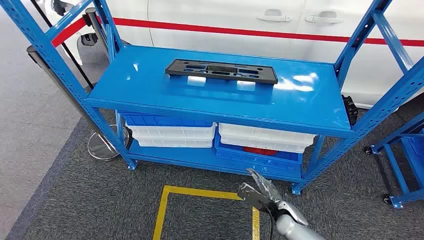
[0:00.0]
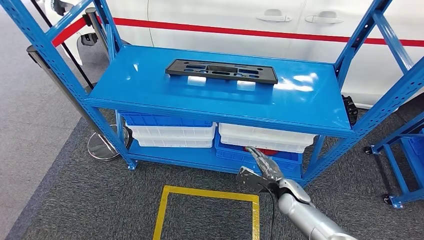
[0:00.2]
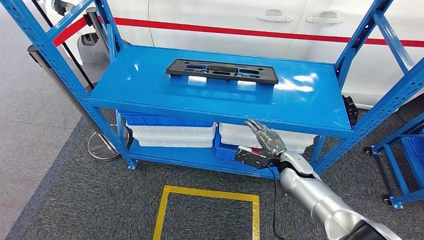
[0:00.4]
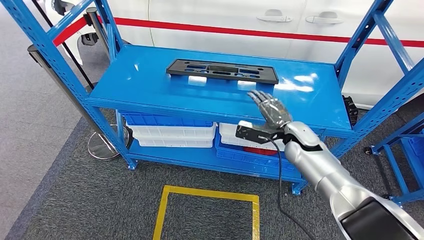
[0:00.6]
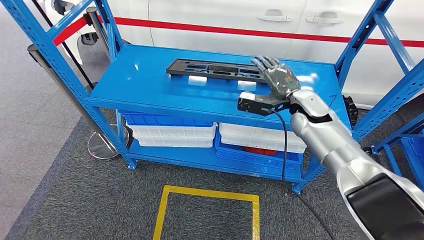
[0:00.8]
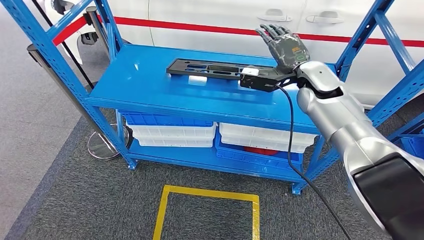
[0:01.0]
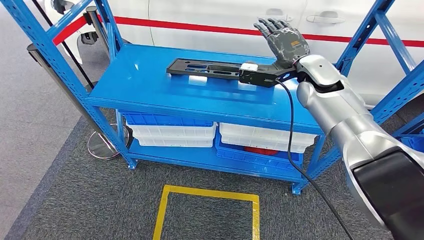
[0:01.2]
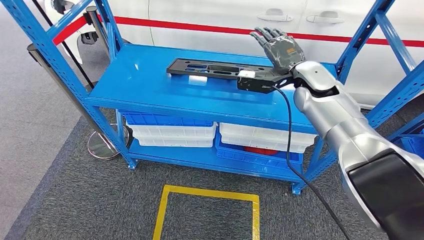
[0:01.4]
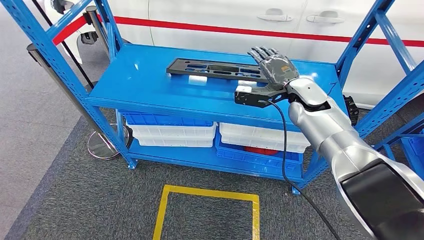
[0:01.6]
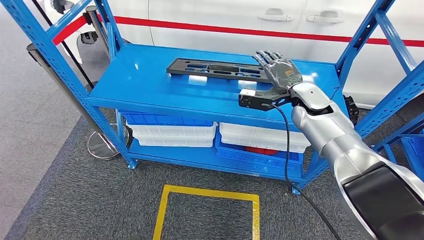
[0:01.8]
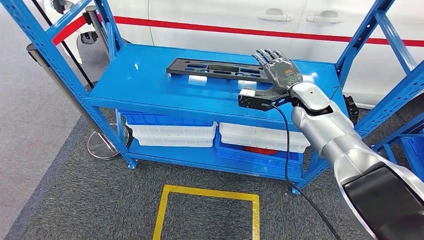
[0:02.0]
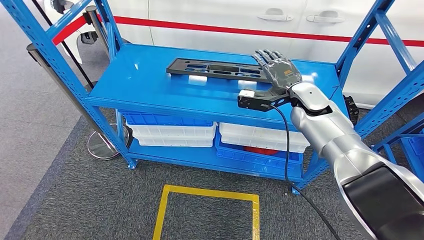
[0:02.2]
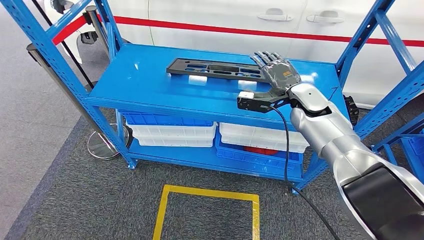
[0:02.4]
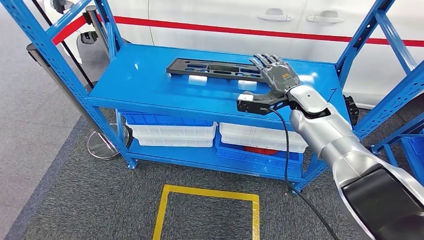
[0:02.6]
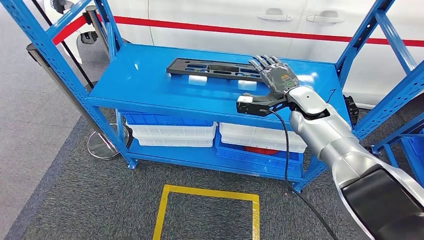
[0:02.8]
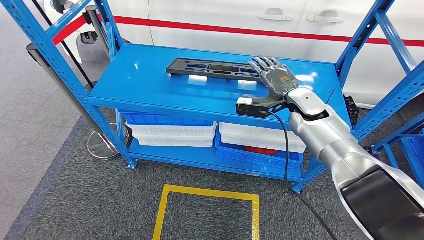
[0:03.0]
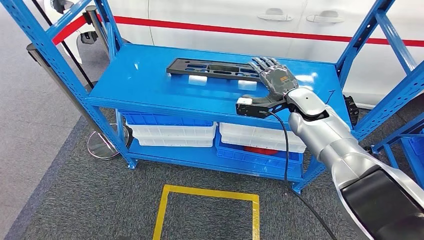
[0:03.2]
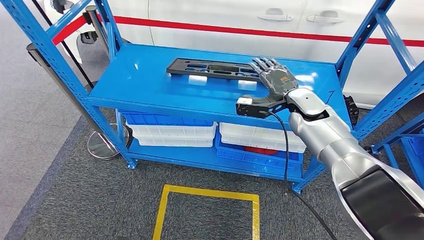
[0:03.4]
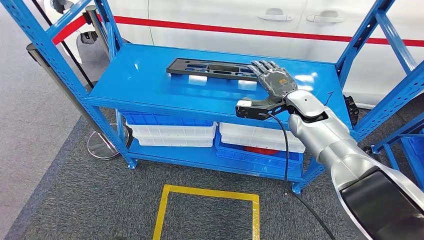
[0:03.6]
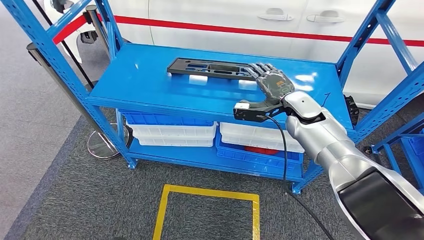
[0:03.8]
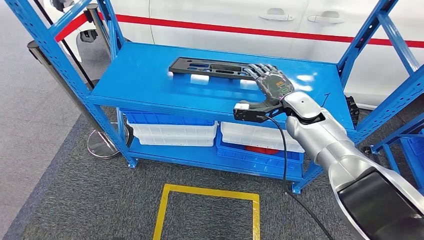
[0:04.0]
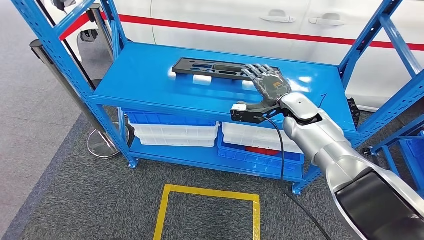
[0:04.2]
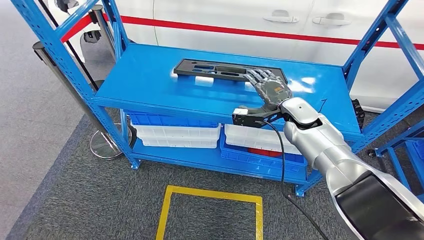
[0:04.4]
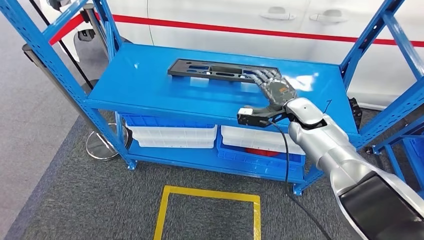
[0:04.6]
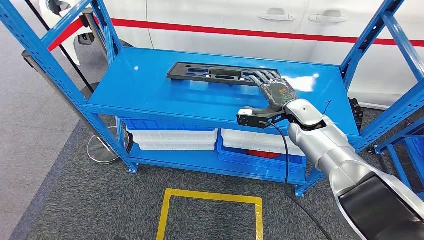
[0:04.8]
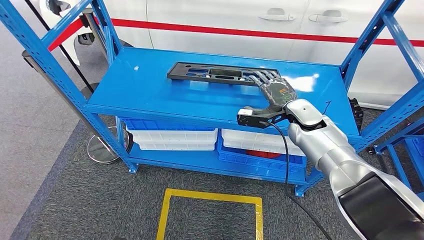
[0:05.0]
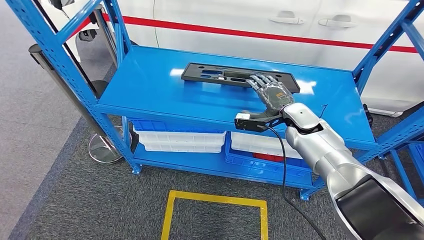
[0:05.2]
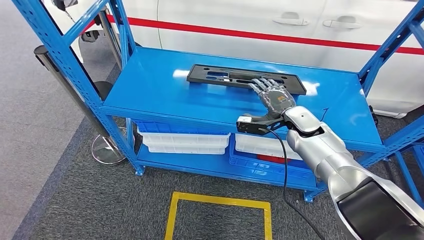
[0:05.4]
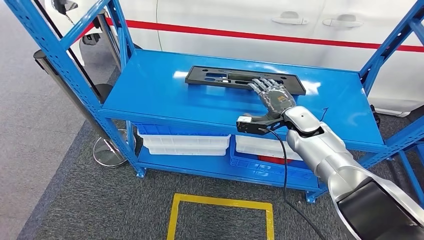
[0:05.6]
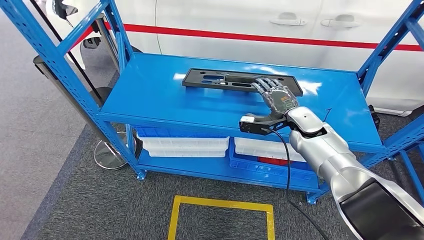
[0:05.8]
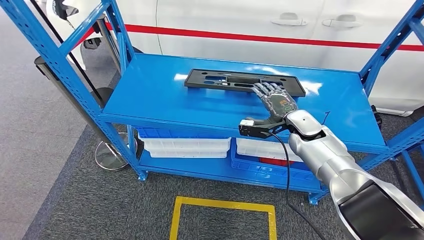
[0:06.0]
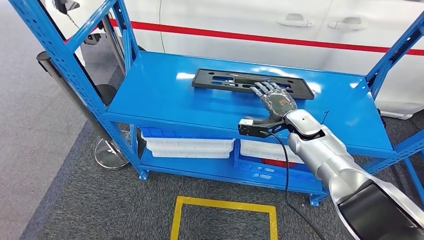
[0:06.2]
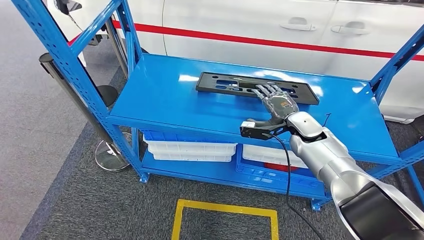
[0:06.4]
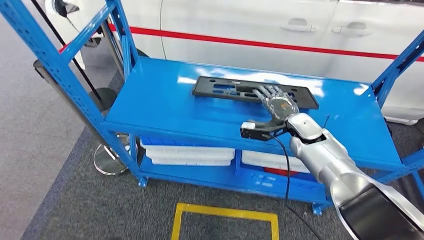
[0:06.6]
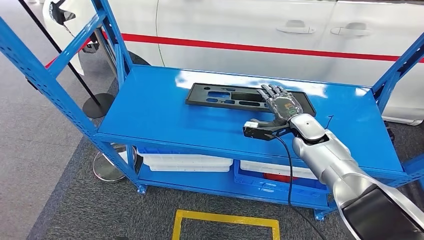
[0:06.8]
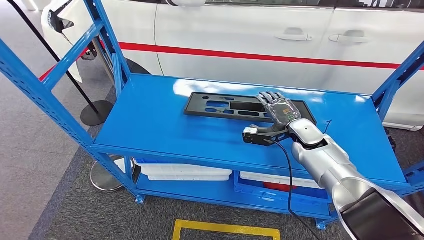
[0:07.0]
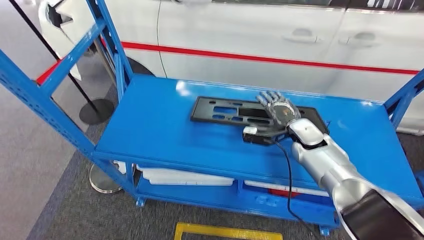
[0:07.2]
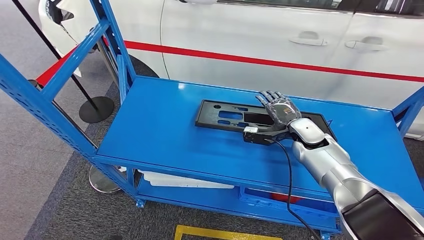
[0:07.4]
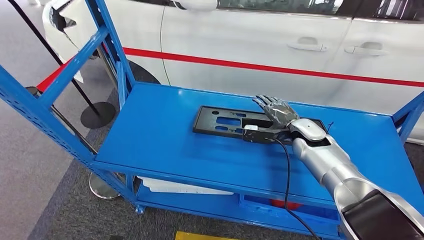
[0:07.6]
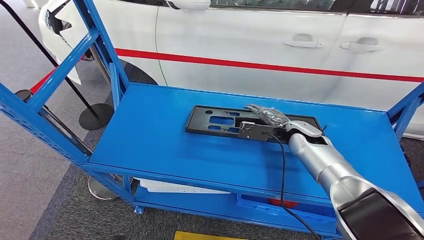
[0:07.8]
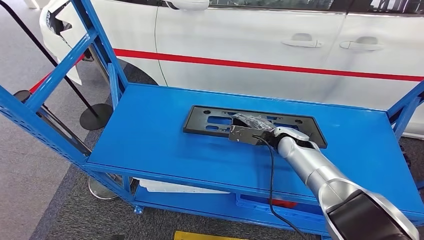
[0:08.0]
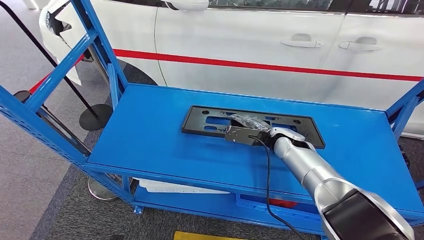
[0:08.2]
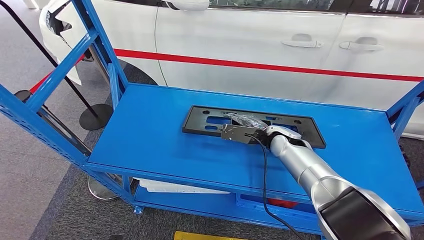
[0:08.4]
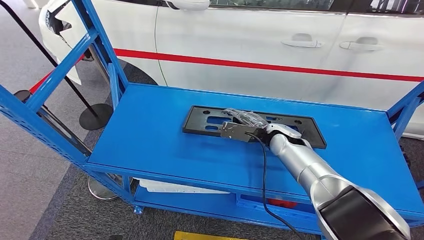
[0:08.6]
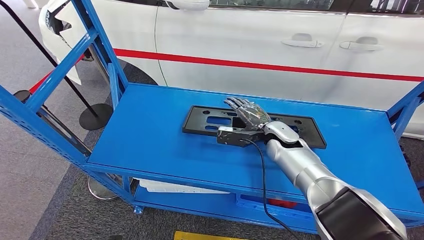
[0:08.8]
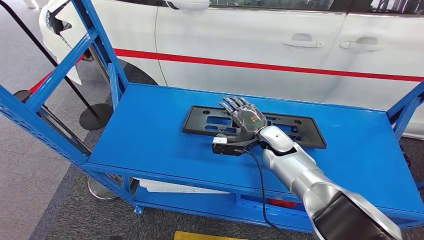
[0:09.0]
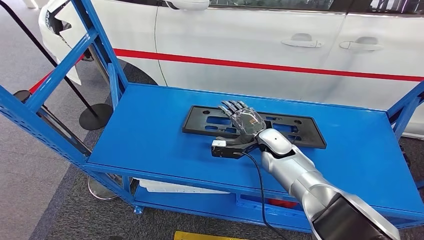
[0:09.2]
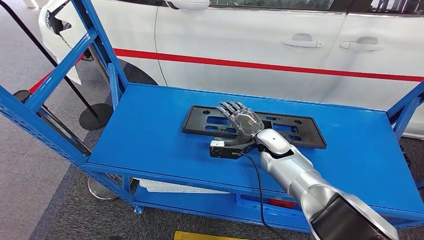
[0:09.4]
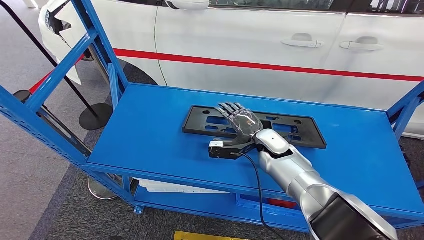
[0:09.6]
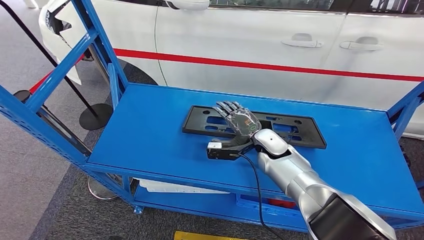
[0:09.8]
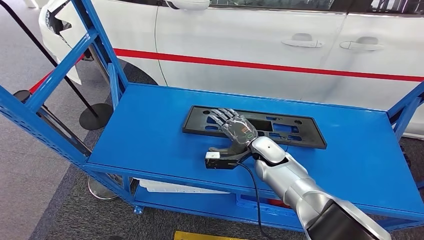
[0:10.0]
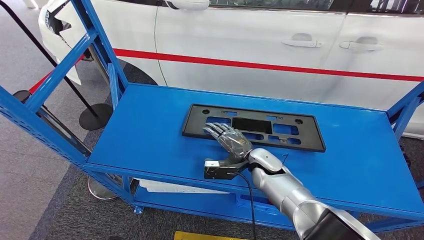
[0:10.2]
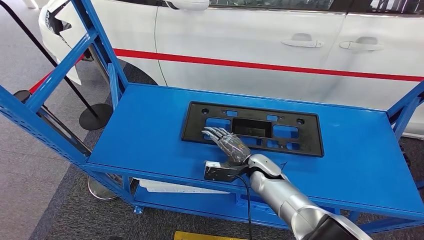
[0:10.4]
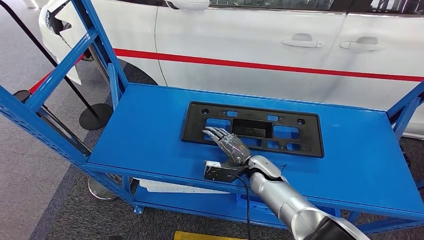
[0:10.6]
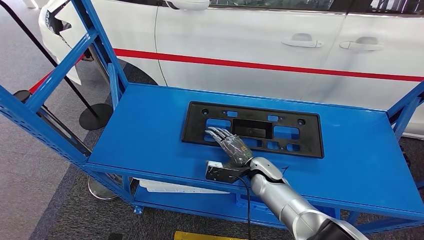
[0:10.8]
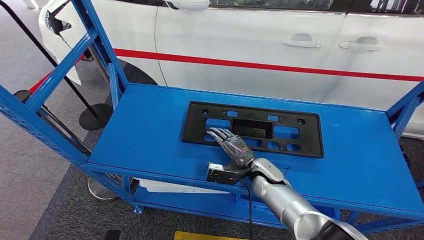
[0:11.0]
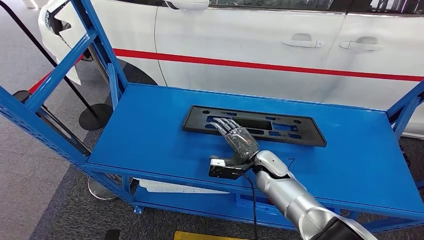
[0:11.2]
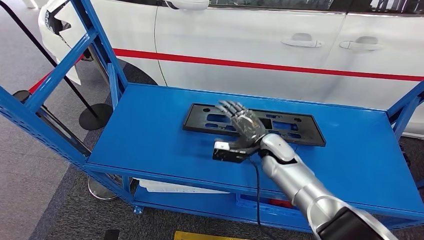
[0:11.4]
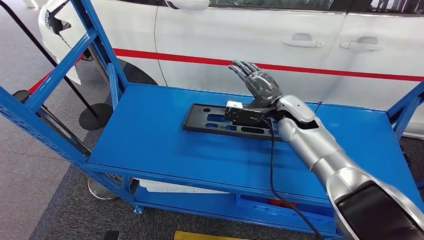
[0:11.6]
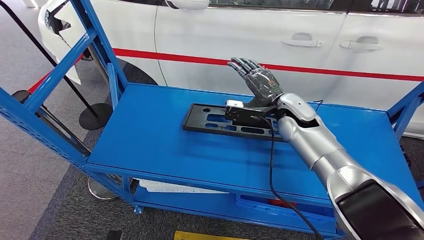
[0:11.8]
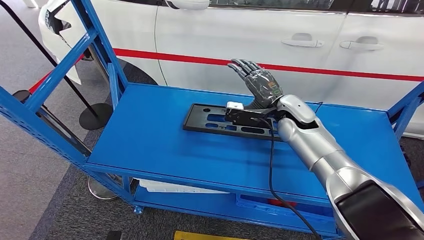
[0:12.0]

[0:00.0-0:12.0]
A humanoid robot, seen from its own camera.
0:09.0 to 0:10.4: The right hand goes roughly 5 cm downward.
0:10.4 to 0:12.0: The right hand heads upward and forward, covering roughly 15 cm.

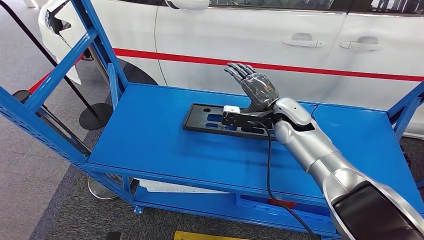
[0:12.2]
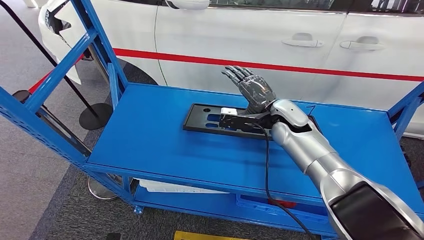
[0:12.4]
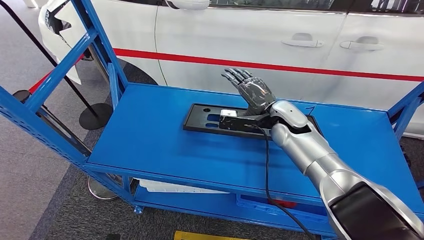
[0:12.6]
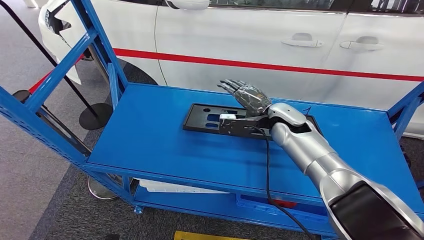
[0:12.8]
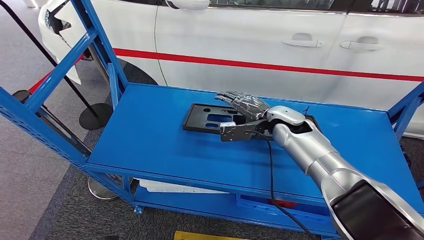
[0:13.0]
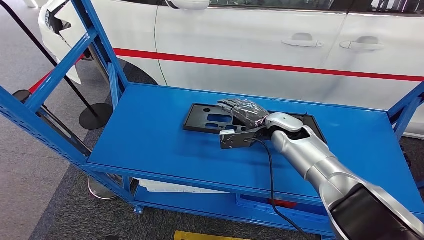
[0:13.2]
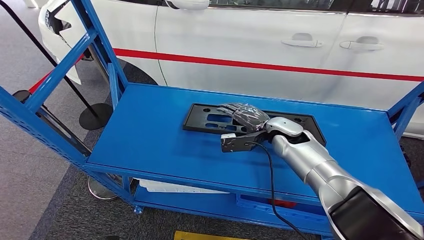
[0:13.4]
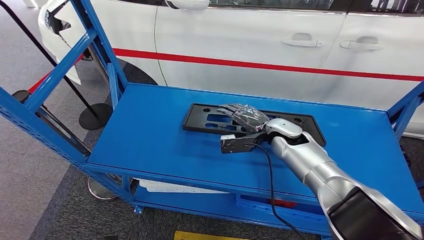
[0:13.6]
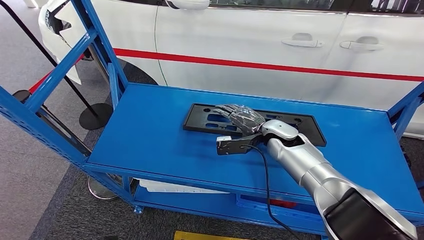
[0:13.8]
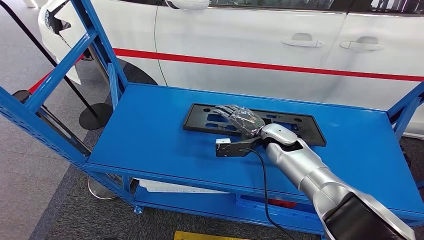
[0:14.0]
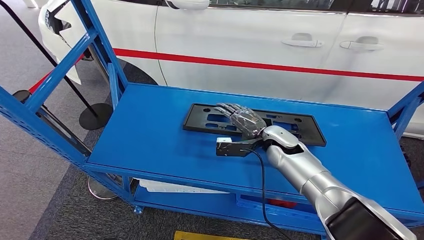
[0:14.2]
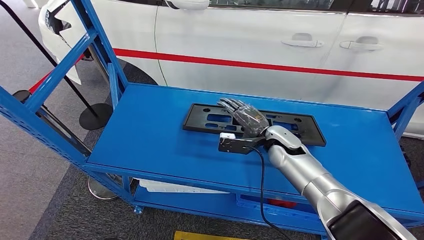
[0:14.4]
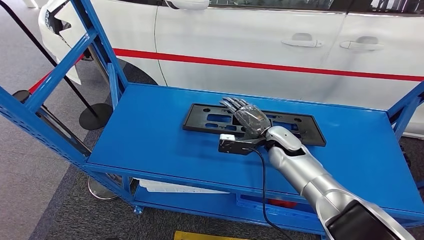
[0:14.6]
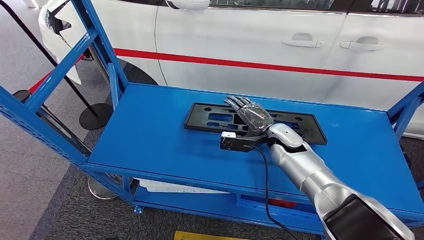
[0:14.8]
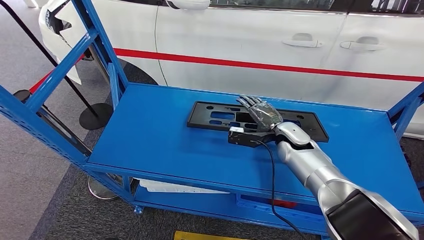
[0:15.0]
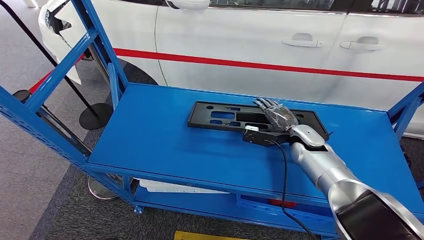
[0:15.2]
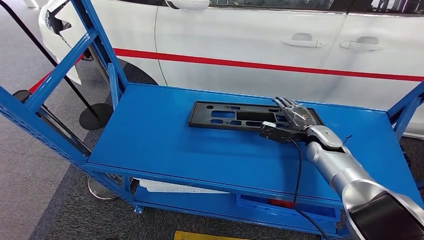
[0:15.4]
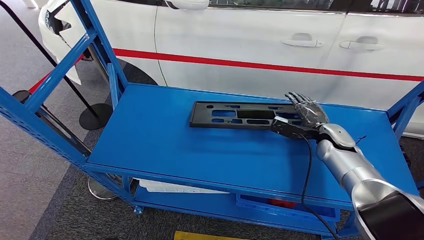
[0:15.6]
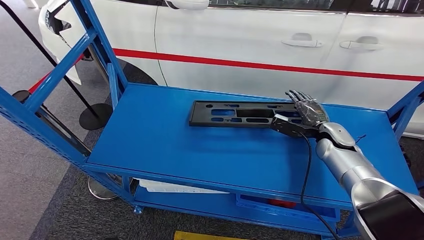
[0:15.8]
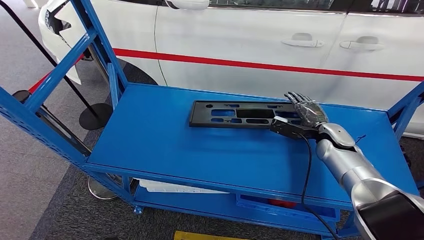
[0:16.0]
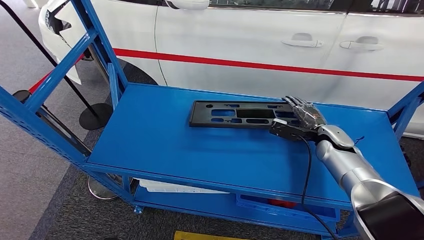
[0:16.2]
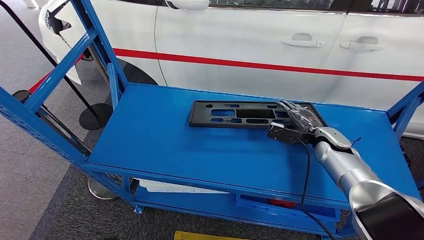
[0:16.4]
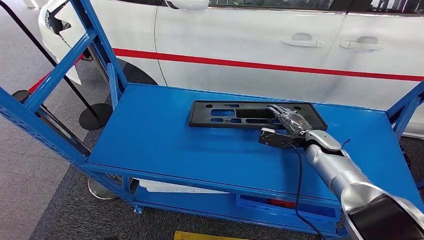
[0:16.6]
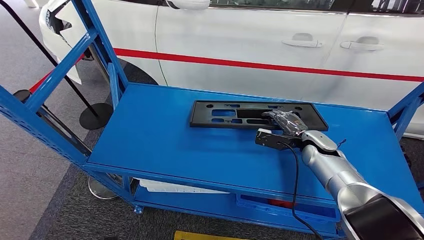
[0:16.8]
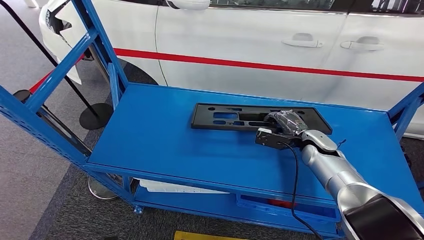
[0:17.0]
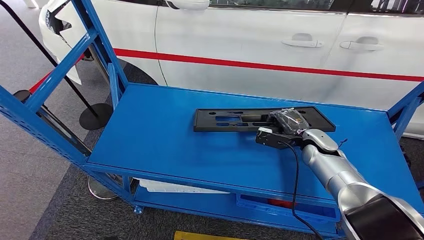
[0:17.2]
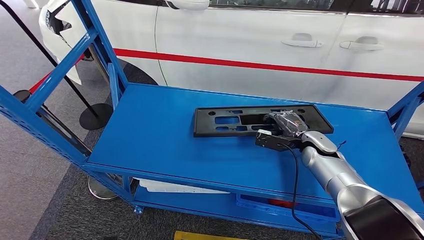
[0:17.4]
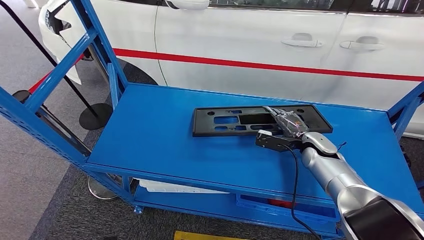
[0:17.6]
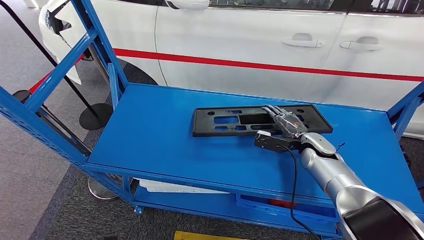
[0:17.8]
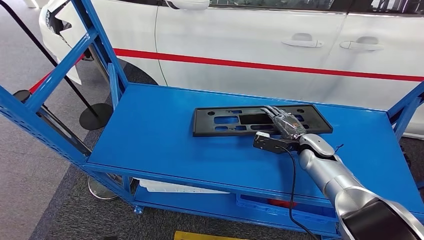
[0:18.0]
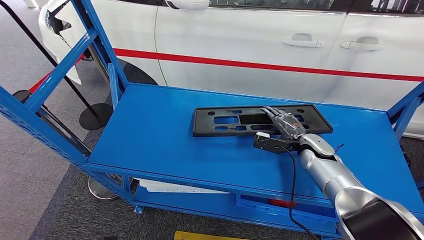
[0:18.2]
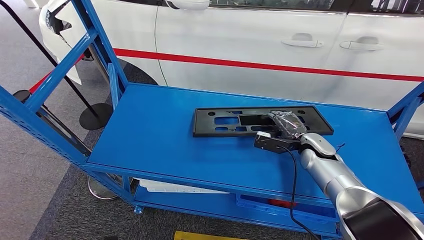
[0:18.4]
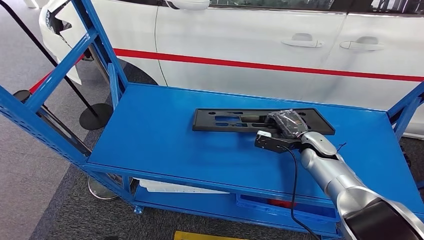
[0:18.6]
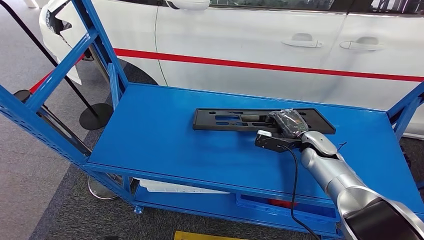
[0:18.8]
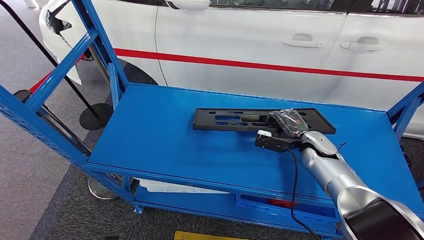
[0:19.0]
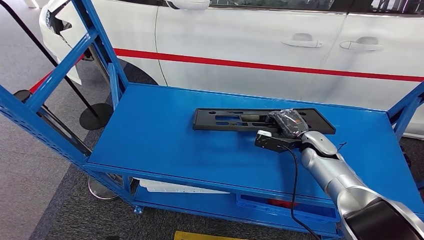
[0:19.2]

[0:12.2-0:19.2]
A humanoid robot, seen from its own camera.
0:12.2 to 0:13.6: The right hand travels downward by some 5 cm.
0:13.6 to 0:15.0: The hands stay close to where they were, moving slightly.
0:15.0 to 0:16.4: The right hand heads to the right, covering about 10 cm.
0:16.4 to 0:17.8: The hands stay close to where they were, moving slightly.
0:17.8 to 0:19.2: Both hands stay about where they are.
